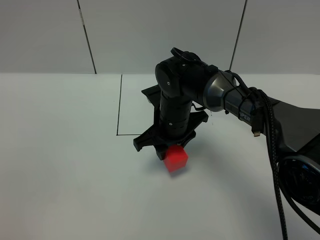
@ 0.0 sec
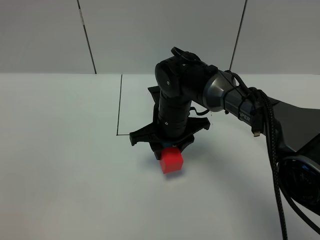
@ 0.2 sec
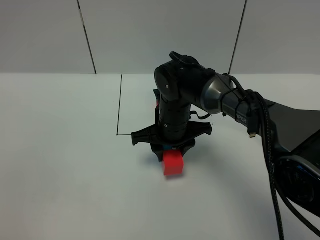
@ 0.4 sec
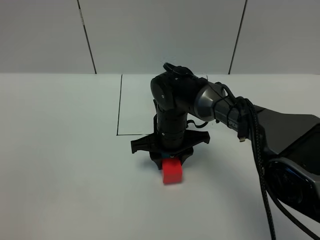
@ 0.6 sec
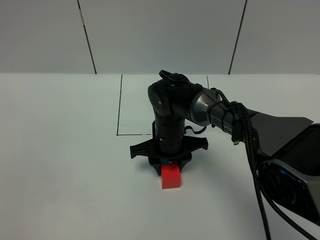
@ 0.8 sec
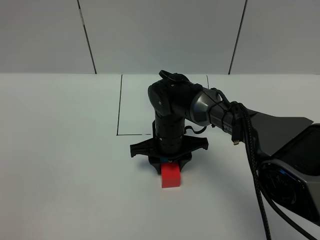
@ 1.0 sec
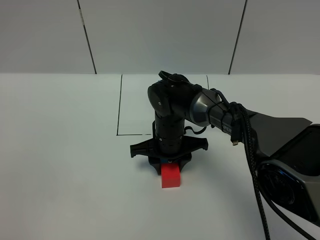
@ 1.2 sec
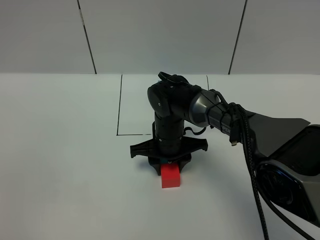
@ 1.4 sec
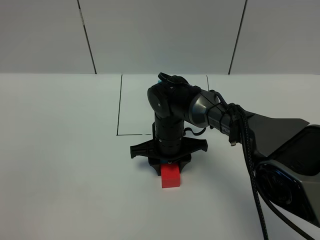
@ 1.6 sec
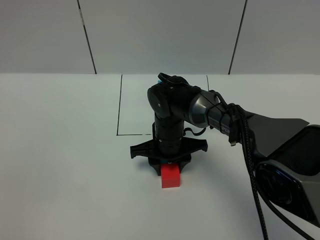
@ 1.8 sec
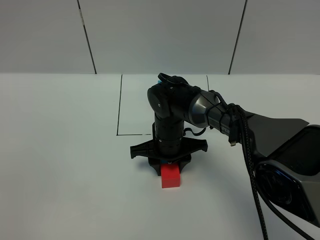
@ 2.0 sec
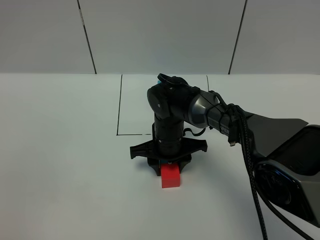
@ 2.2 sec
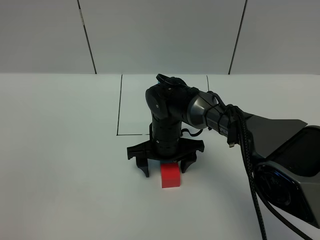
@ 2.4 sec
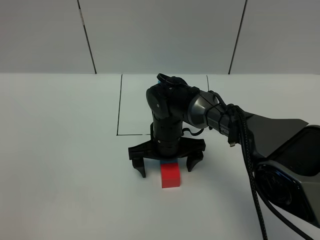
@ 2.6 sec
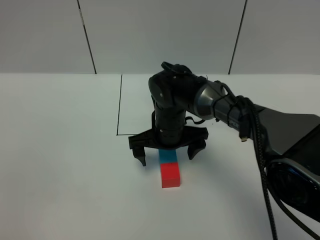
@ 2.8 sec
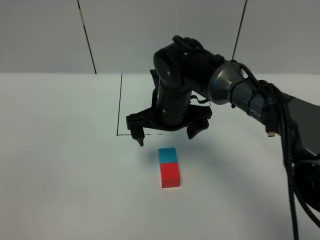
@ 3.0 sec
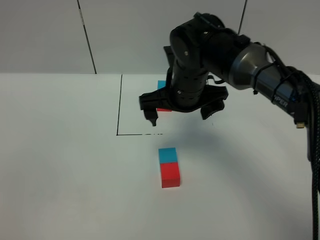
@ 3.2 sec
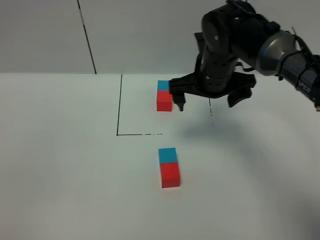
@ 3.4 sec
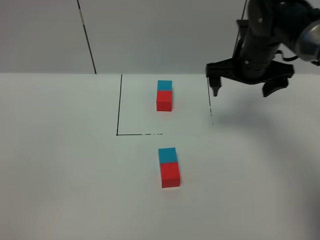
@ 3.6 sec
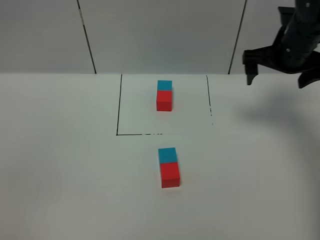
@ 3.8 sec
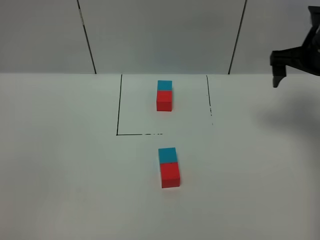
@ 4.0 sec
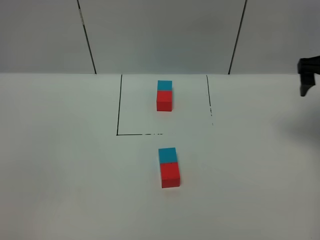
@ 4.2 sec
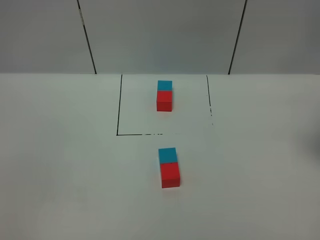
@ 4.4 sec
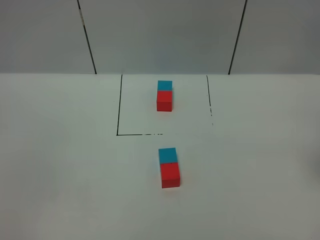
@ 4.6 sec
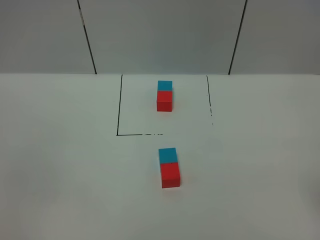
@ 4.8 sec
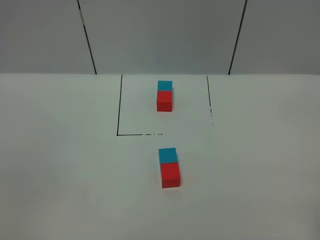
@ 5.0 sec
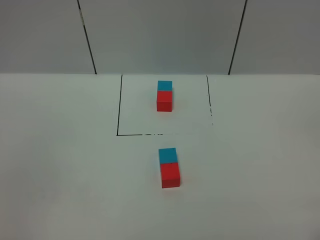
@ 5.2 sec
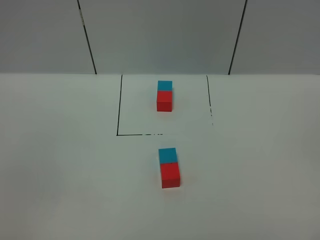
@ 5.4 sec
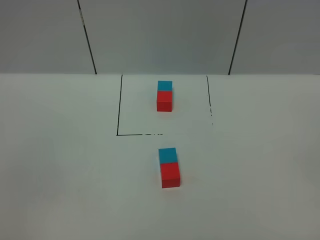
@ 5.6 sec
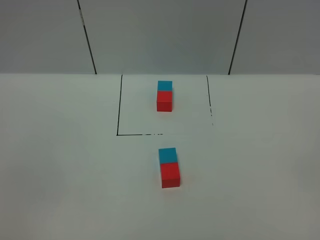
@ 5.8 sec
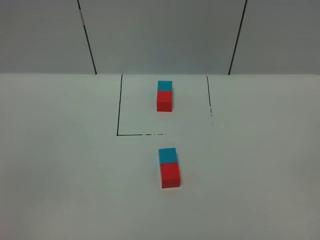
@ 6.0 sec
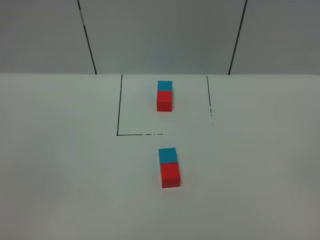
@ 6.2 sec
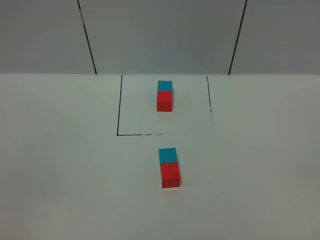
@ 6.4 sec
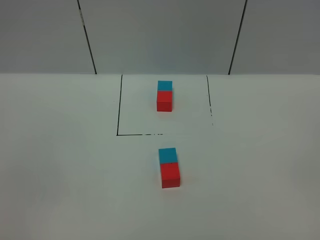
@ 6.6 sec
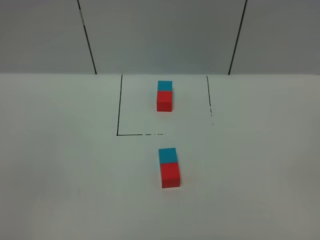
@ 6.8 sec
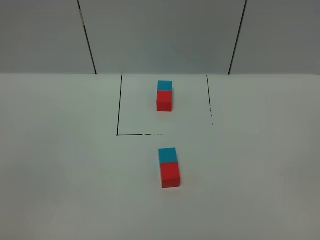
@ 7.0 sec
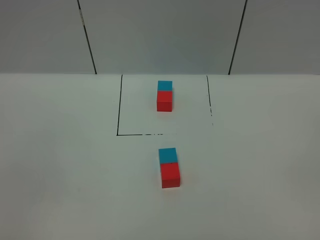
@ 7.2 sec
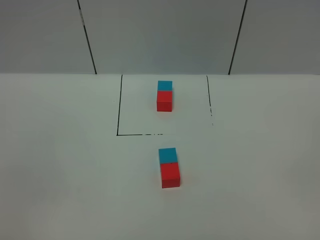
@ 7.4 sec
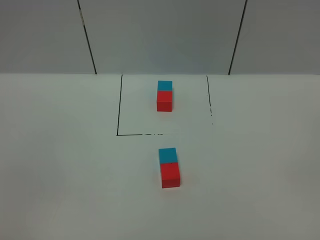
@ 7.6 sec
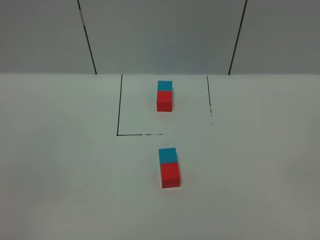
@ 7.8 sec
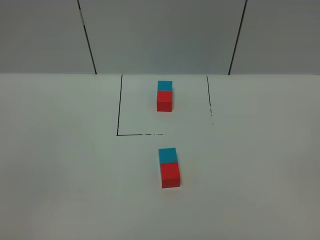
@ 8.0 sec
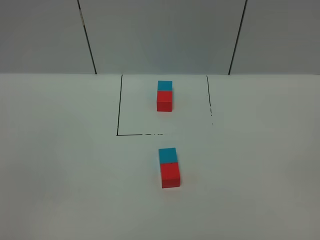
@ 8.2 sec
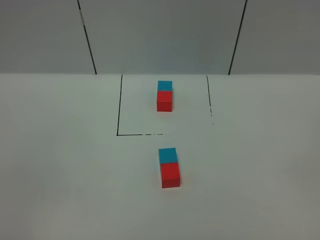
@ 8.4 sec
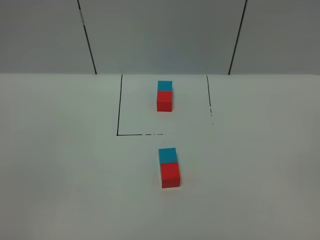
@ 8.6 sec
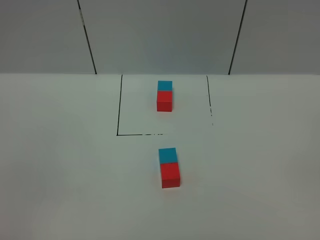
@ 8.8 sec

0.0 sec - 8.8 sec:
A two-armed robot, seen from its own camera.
Task of the whole recording: According to the building block template in front, assemble the scattered blocks together.
Step, 0.0 sec - 2.6 sec: Adjust the pose of the building blocks.
0.0 sec - 1.4 sec: The right gripper shifts roughly 5 cm downward.
1.4 sec - 3.0 sec: The right gripper travels upward by roughly 10 cm, and opens.
3.0 sec - 4.4 sec: The right gripper moves to the right, roughly 30 cm.
